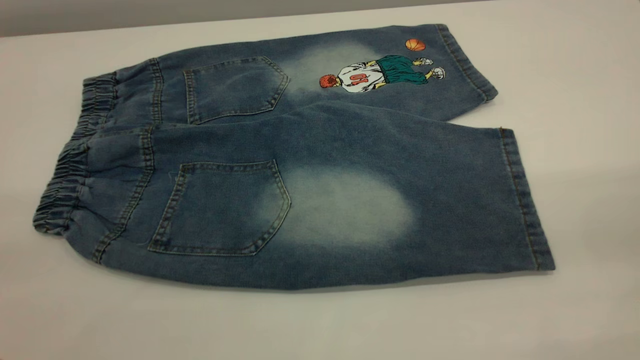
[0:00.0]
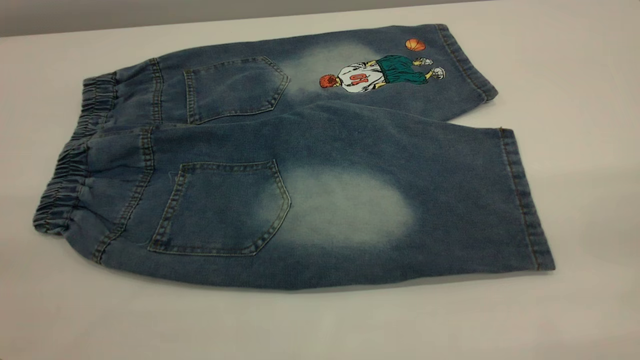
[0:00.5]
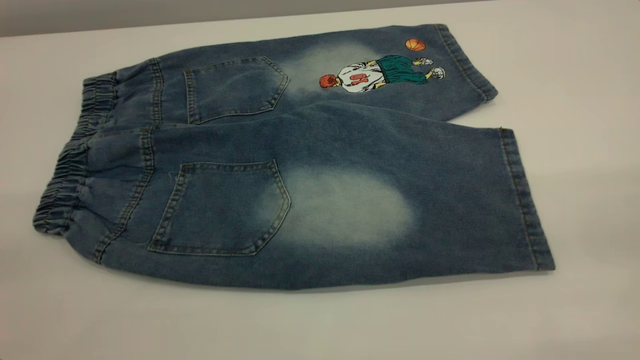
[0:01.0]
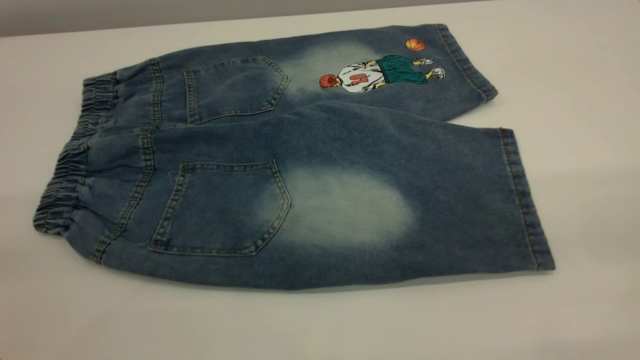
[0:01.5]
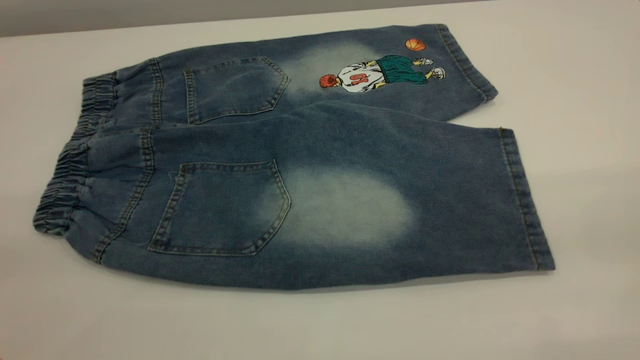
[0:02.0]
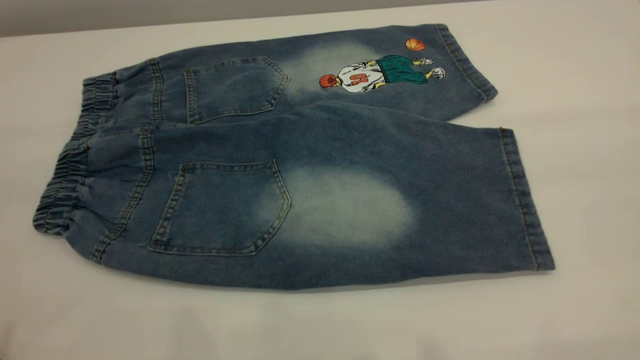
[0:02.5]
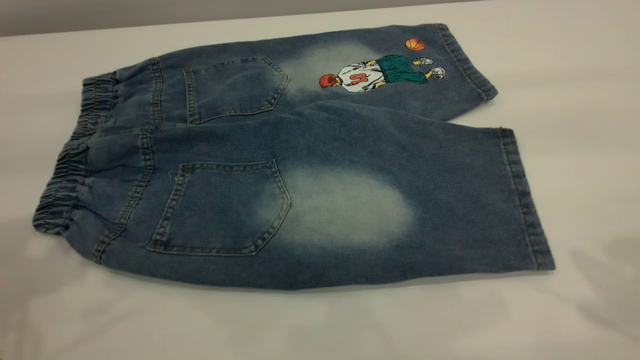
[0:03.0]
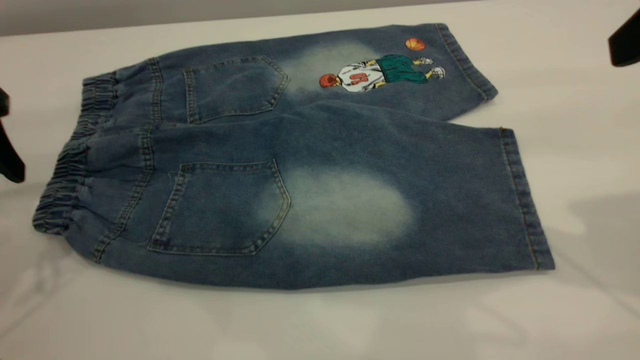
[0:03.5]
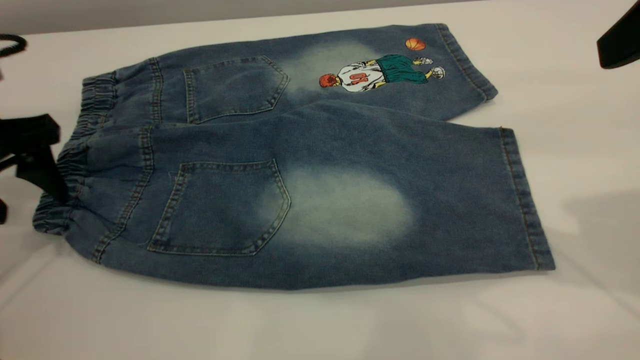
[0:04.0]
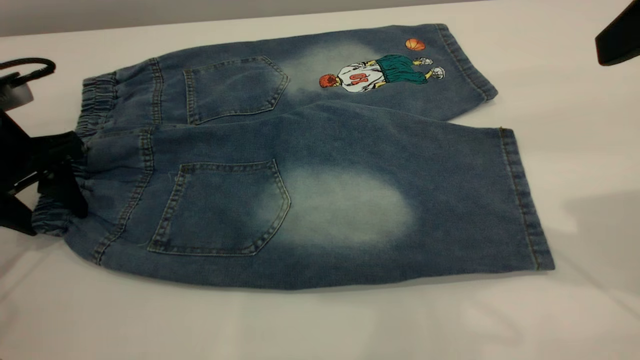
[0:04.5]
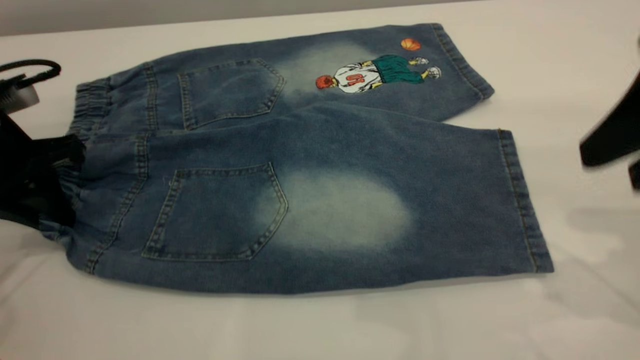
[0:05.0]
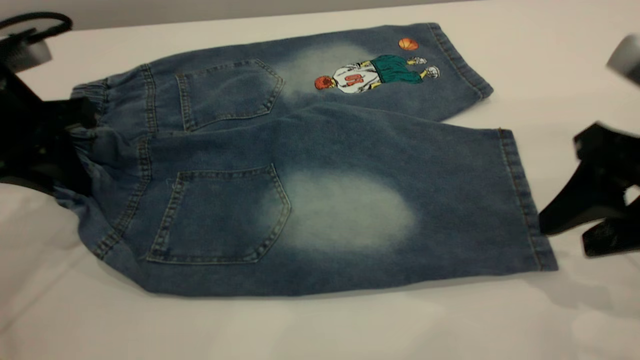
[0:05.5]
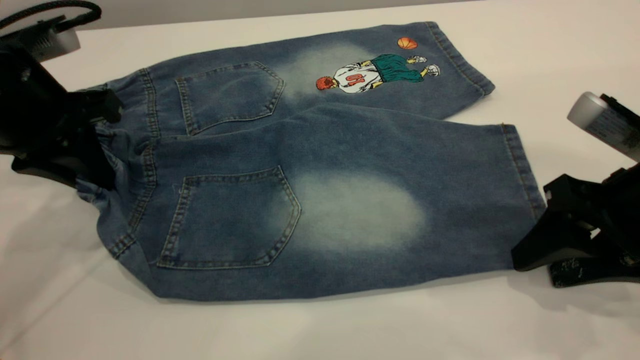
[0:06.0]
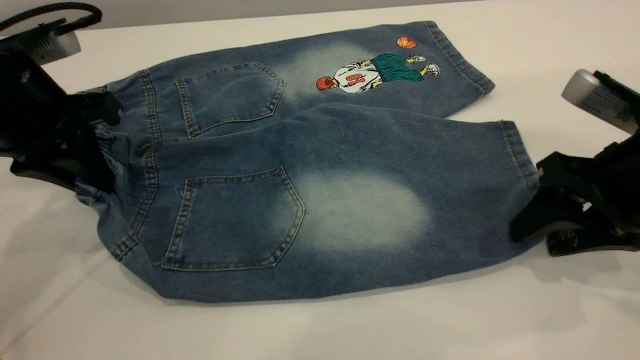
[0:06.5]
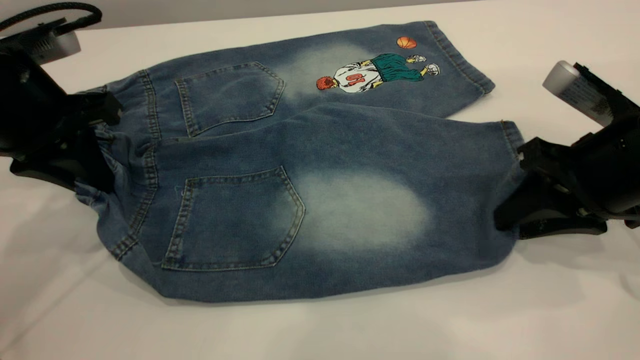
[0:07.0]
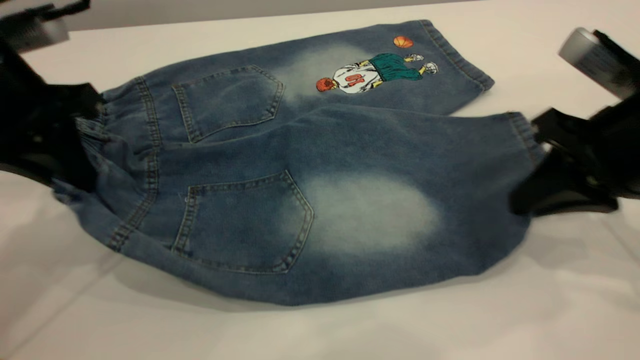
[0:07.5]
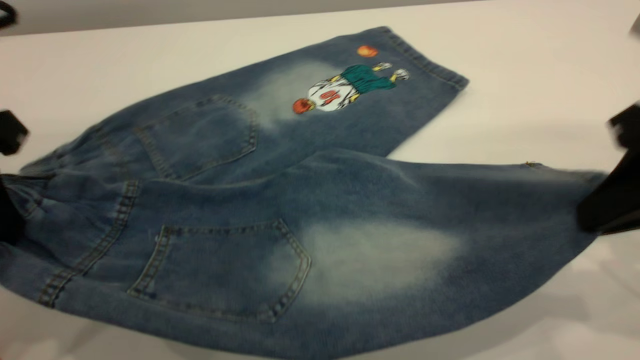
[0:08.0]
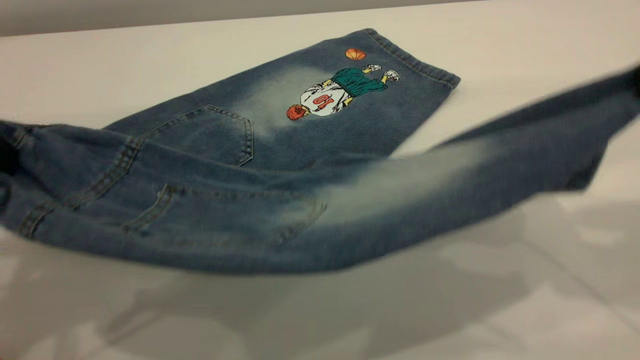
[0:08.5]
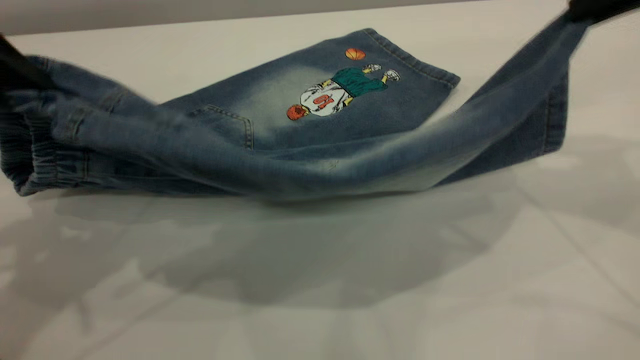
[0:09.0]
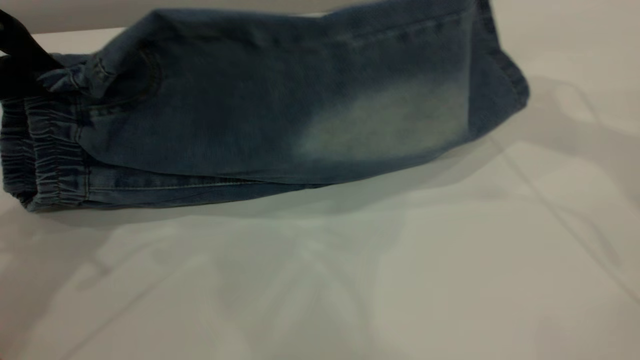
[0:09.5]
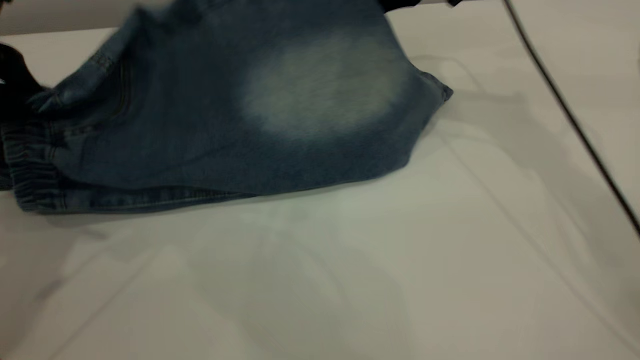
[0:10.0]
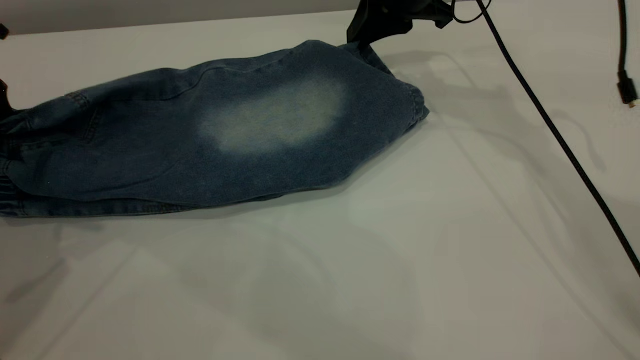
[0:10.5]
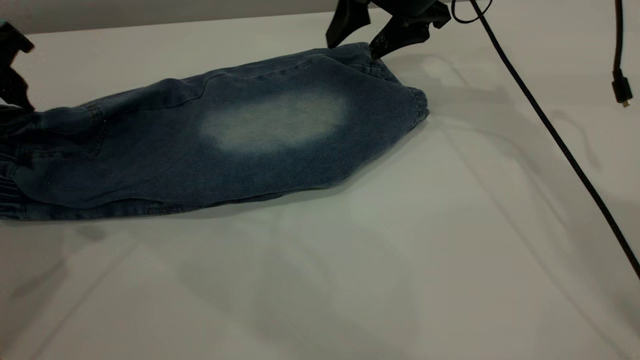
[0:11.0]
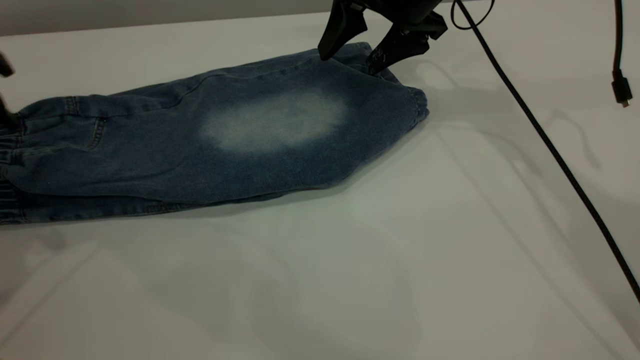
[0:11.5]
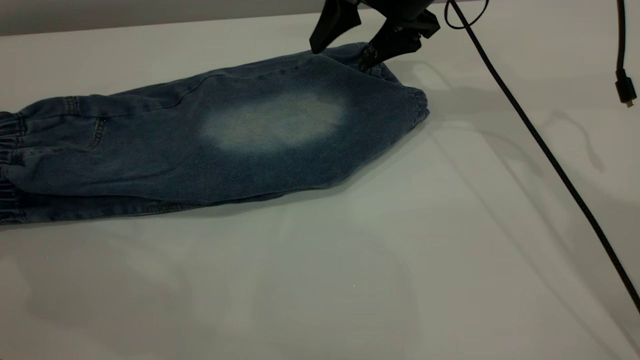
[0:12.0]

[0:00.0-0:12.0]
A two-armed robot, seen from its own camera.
0:00.0 to 0:02.0: Neither gripper changes place.
0:02.0 to 0:04.0: The right gripper heads forward, covering about 20 cm; the left gripper heads forward and downward, covering approximately 35 cm.
0:04.0 to 0:06.0: The left gripper heads to the right, covering approximately 5 cm, and closes its fingers. The right gripper moves downward, some 15 cm.
0:06.0 to 0:08.0: The left gripper heads backward and upward, covering roughly 10 cm, while the right gripper moves upward, some 10 cm, and closes up.
0:08.0 to 0:10.0: The right gripper goes roughly 30 cm forward and to the left; the left gripper travels forward by some 5 cm.
0:10.0 to 0:12.0: The right gripper opens its fingers. Meanwhile the left gripper heads to the left, covering approximately 15 cm, and opens.

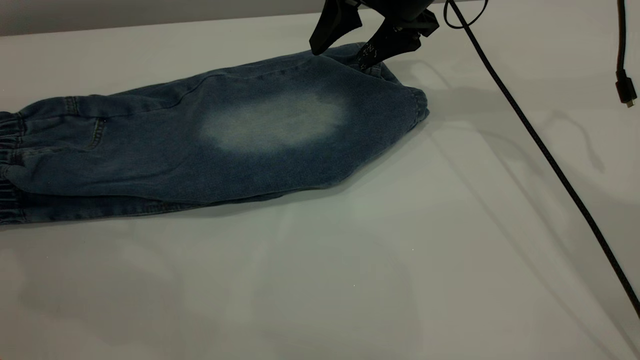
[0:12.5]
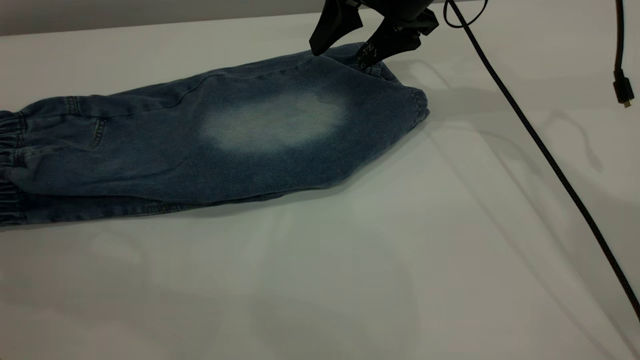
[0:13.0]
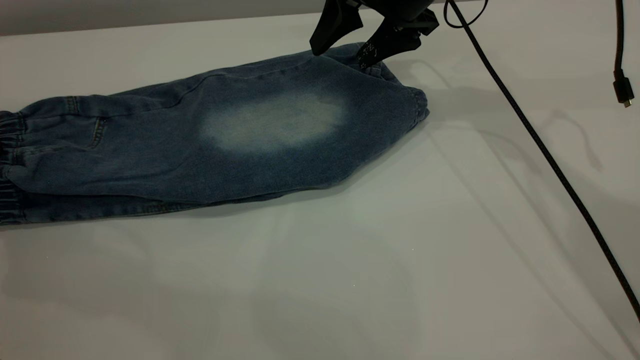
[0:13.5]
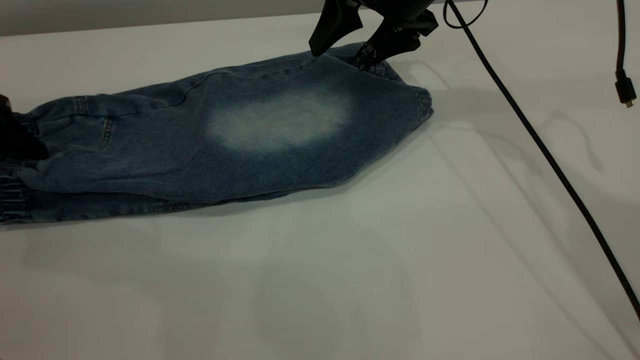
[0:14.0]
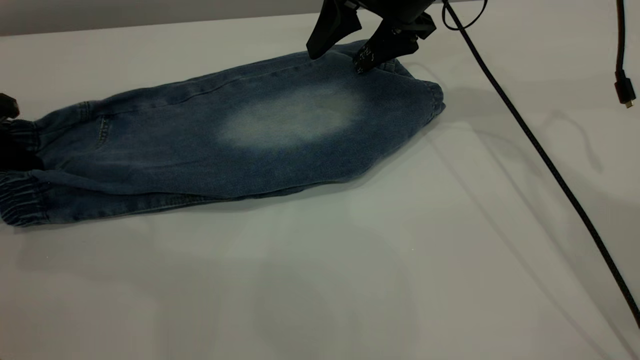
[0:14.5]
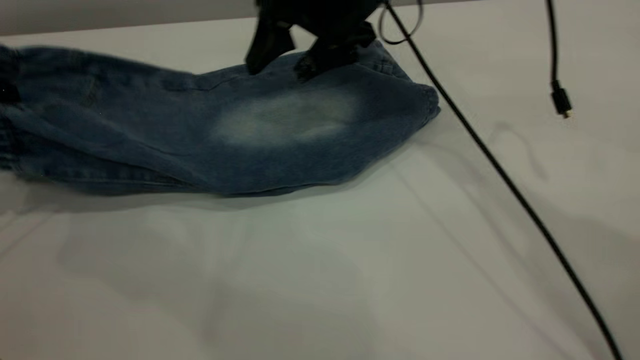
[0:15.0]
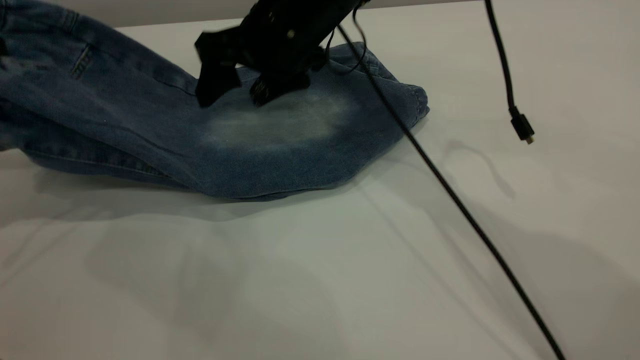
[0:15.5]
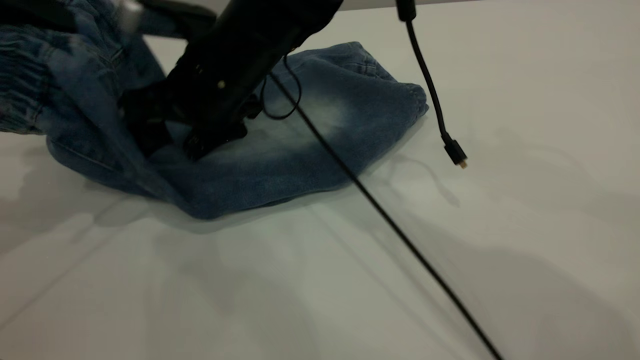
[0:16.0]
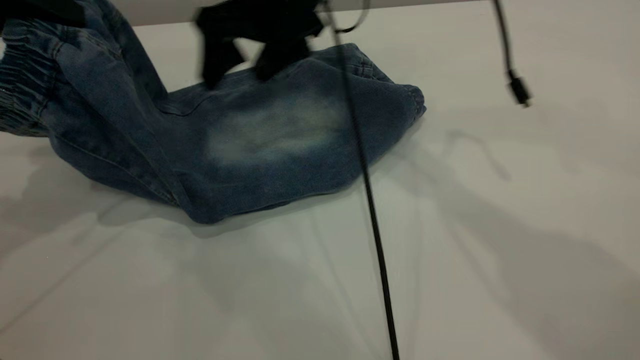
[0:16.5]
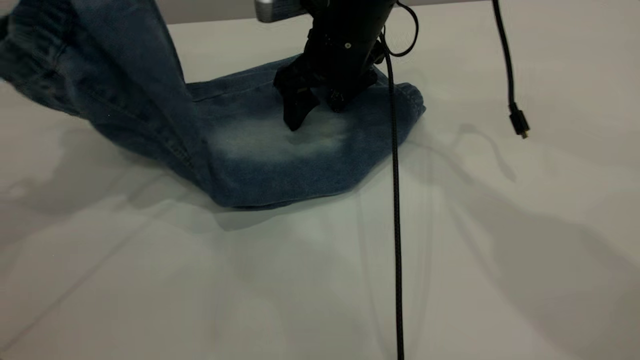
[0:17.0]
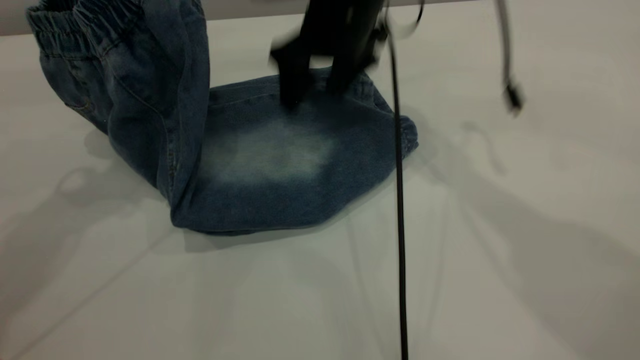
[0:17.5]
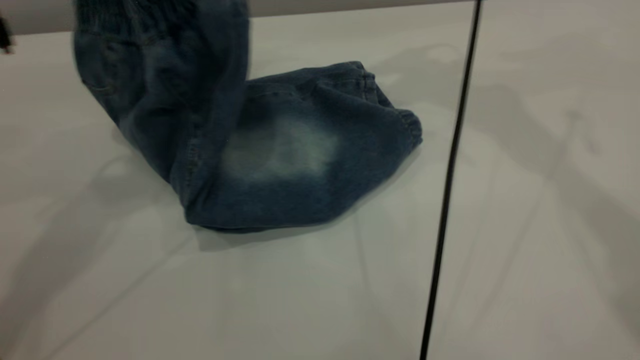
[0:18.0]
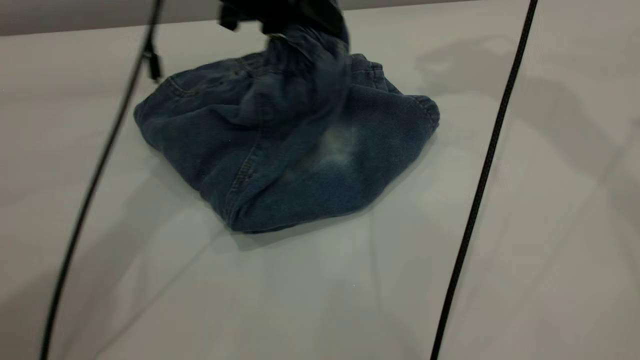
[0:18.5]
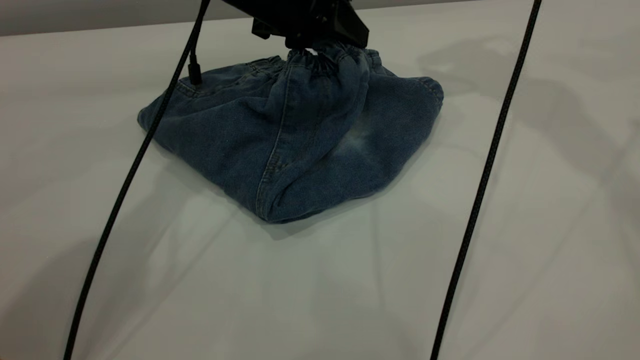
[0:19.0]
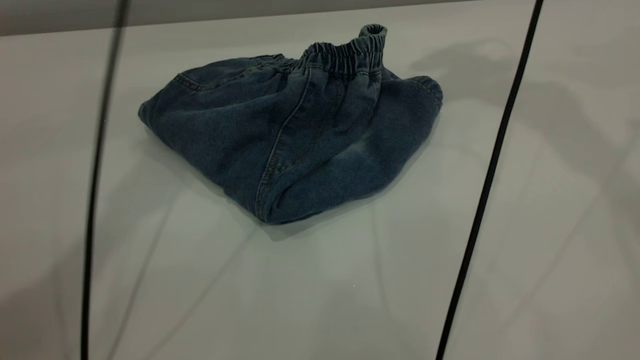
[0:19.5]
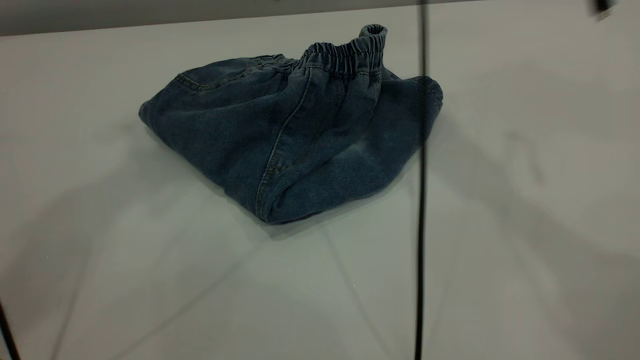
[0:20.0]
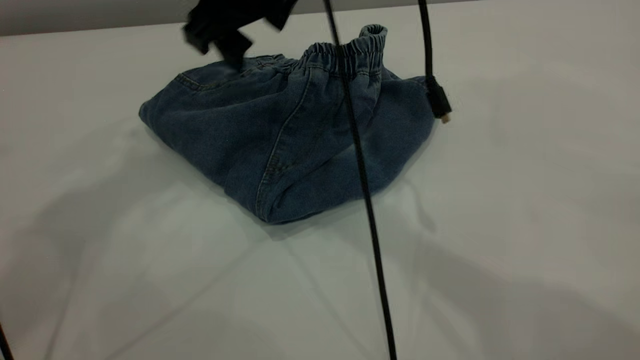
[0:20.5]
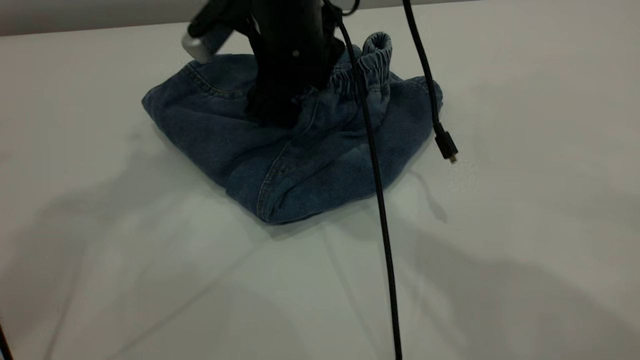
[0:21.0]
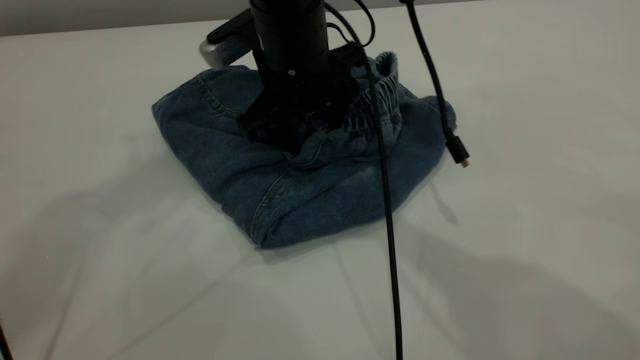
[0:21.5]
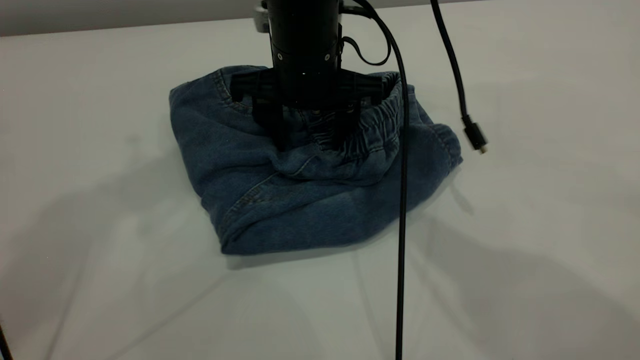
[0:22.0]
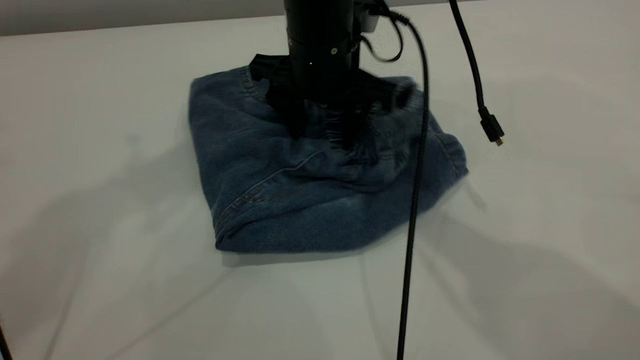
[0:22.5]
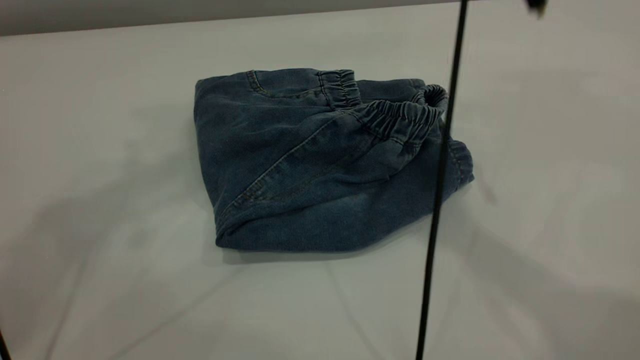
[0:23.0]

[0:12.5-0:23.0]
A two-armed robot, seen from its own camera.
Step, 0:12.5 to 0:19.5: Fold the pants from left to right.
0:12.5 to 0:14.5: The left gripper is displaced downward by some 5 cm, and closes its fingers.
0:14.5 to 0:16.5: The left gripper travels upward and to the right by approximately 15 cm. Meanwhile the right gripper travels to the left by roughly 10 cm.
0:16.5 to 0:19.0: The right gripper heads to the right and upward, covering about 25 cm; the left gripper heads to the right, forward and downward, covering about 25 cm, and opens its fingers.
0:19.0 to 0:21.0: The left gripper shifts roughly 30 cm upward, and opens. Meanwhile the right gripper moves to the left and downward, roughly 30 cm.
0:21.0 to 0:23.0: The right gripper is displaced upward and to the right by some 20 cm.
